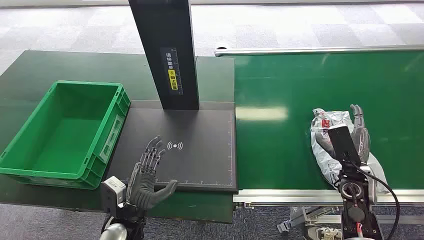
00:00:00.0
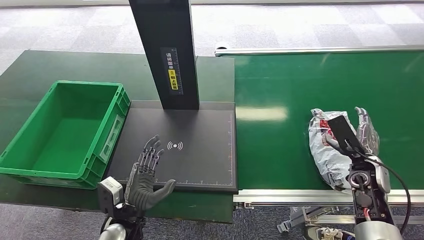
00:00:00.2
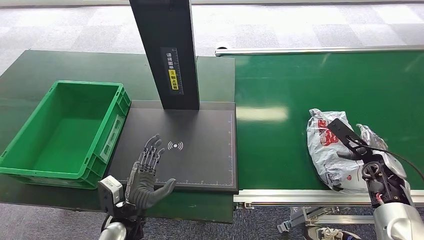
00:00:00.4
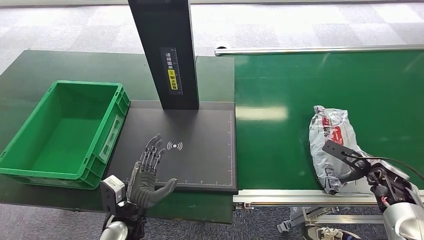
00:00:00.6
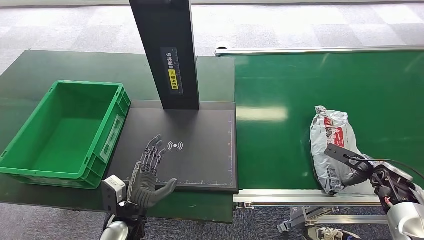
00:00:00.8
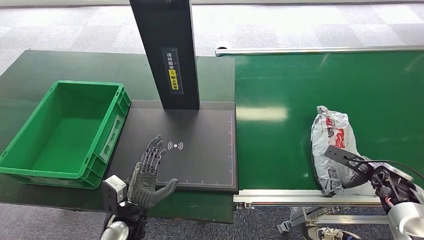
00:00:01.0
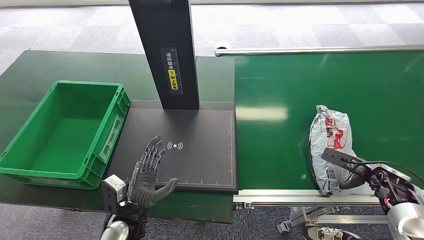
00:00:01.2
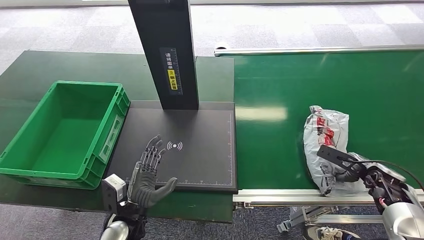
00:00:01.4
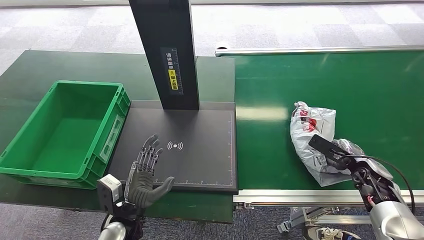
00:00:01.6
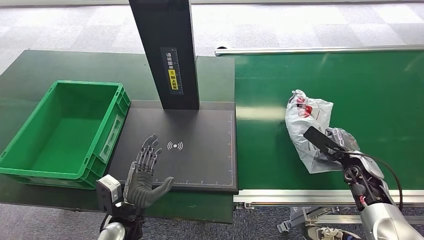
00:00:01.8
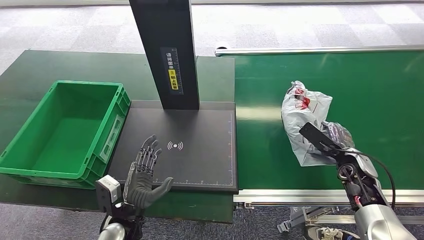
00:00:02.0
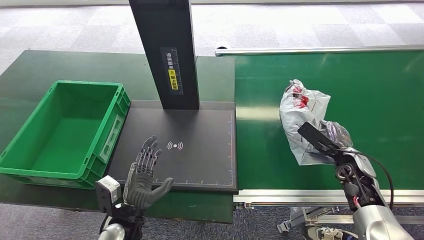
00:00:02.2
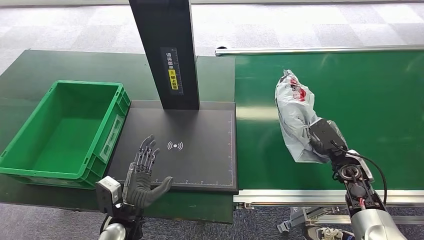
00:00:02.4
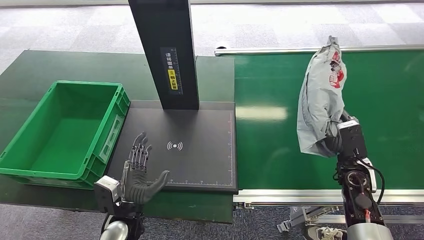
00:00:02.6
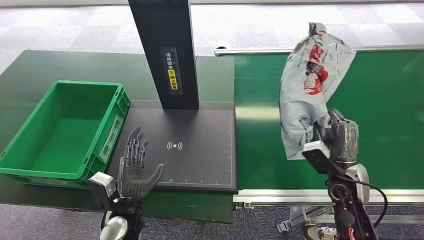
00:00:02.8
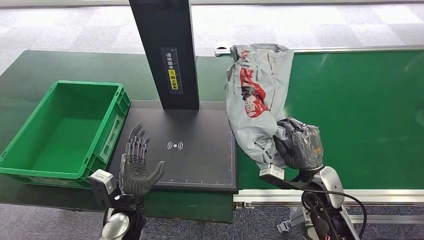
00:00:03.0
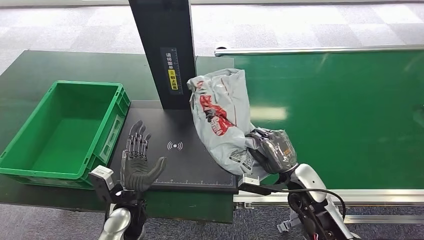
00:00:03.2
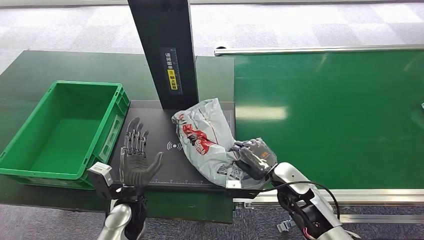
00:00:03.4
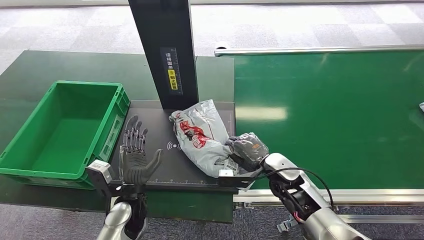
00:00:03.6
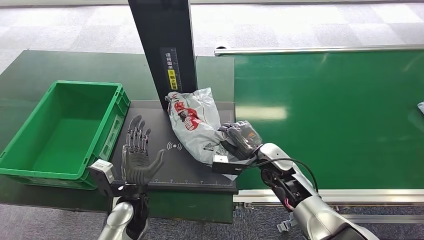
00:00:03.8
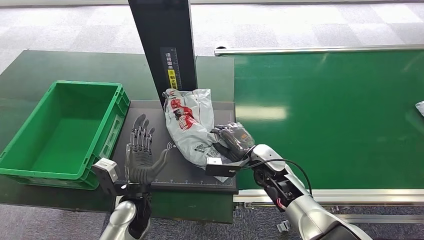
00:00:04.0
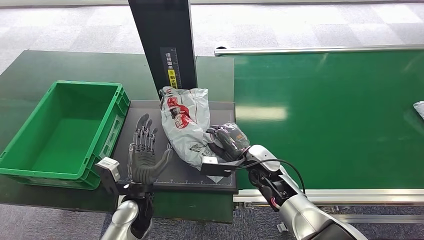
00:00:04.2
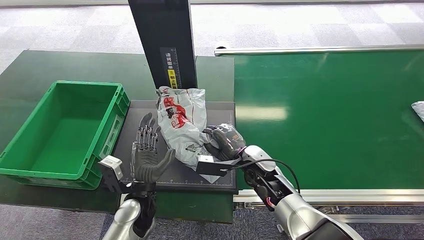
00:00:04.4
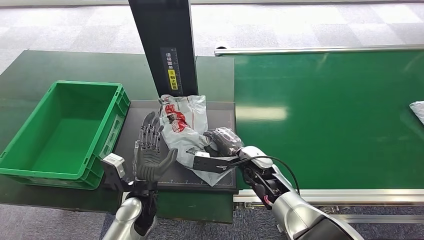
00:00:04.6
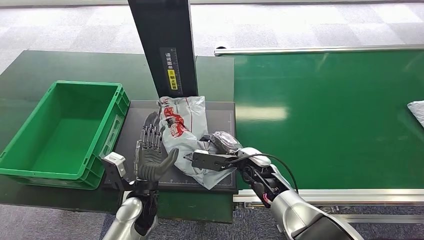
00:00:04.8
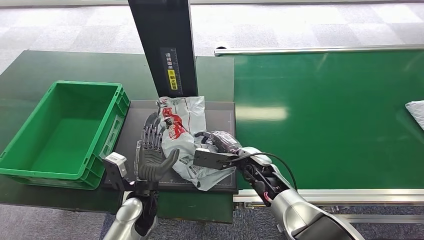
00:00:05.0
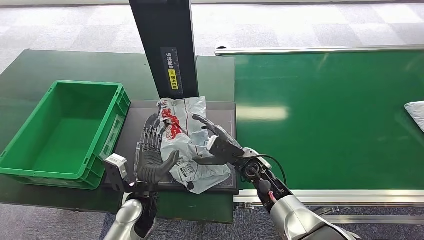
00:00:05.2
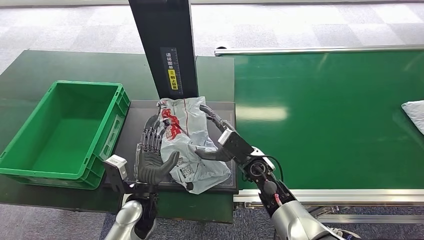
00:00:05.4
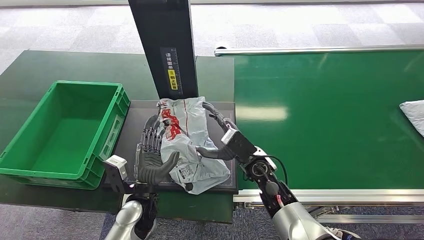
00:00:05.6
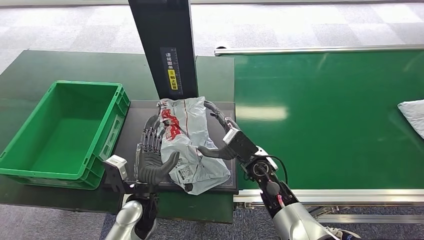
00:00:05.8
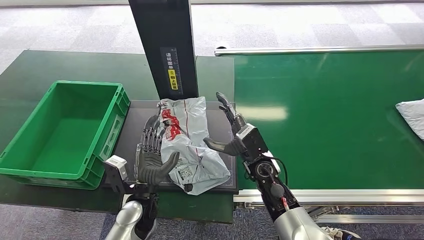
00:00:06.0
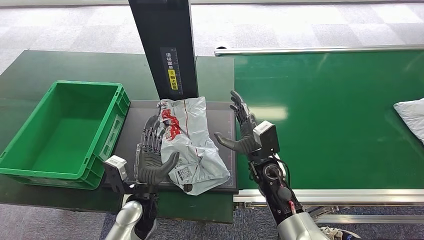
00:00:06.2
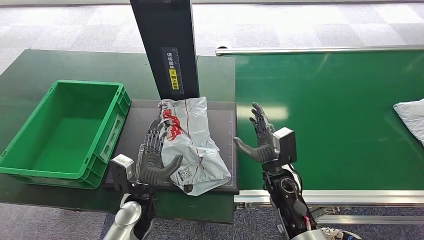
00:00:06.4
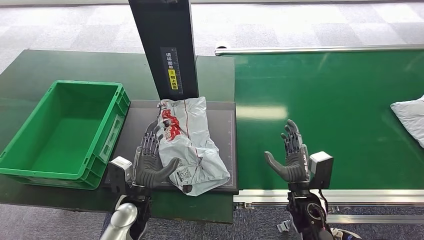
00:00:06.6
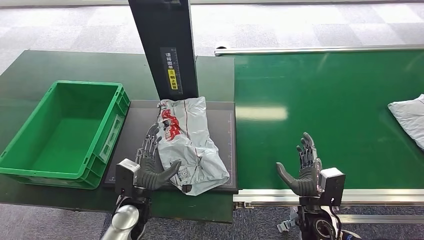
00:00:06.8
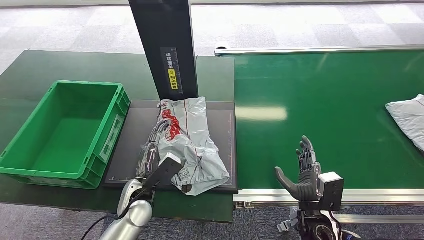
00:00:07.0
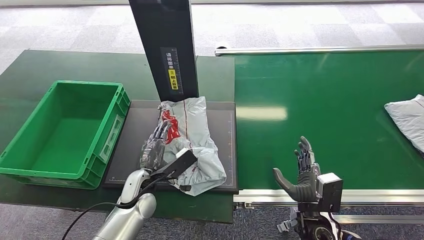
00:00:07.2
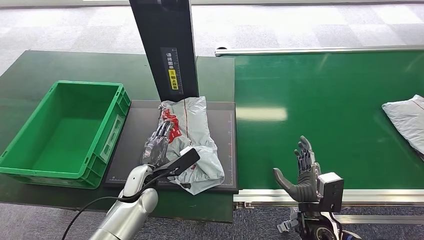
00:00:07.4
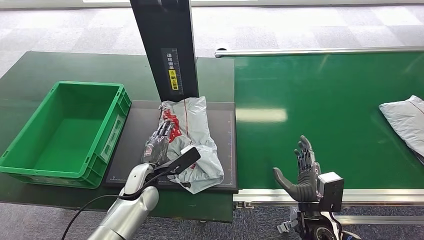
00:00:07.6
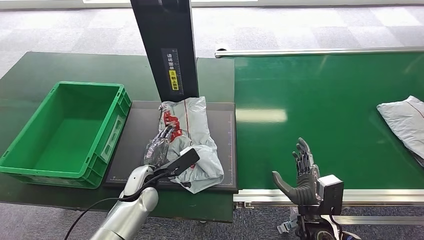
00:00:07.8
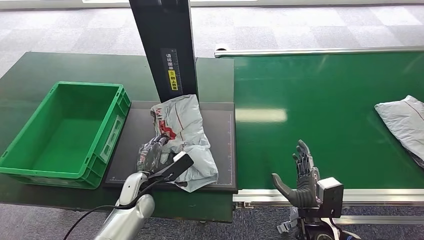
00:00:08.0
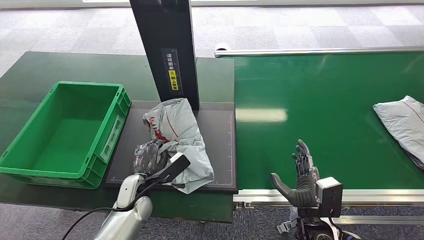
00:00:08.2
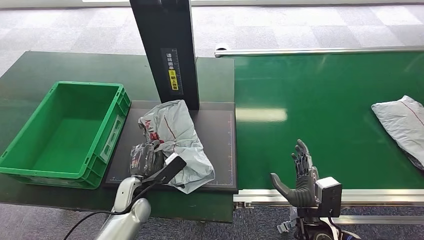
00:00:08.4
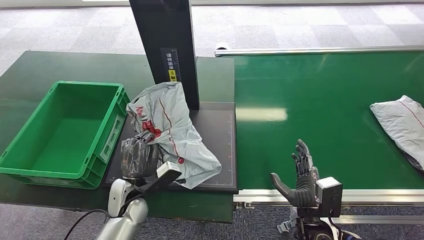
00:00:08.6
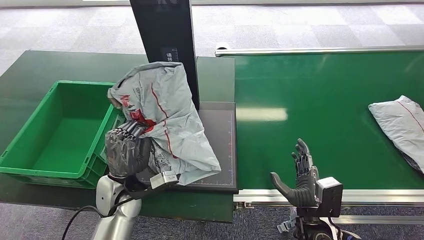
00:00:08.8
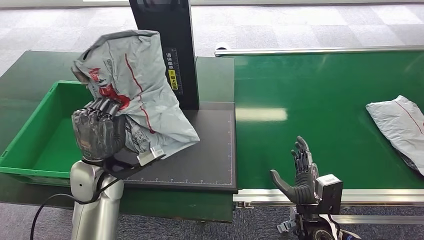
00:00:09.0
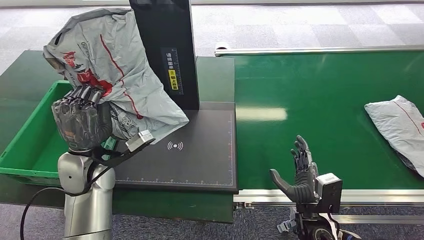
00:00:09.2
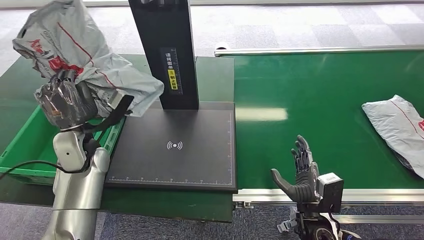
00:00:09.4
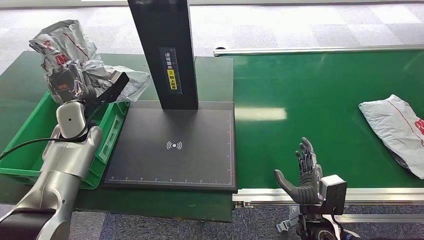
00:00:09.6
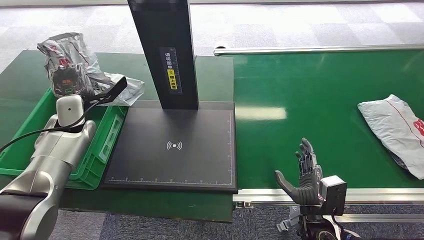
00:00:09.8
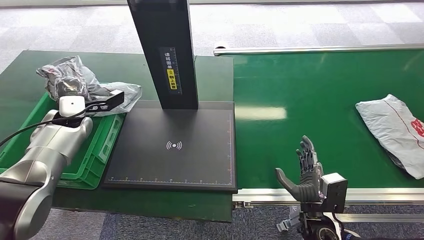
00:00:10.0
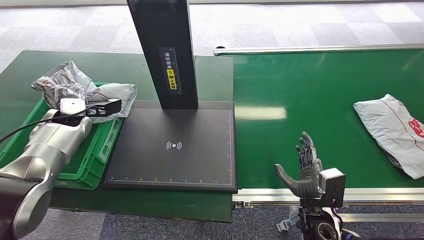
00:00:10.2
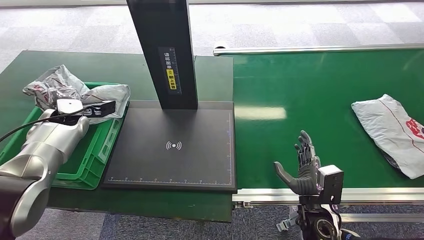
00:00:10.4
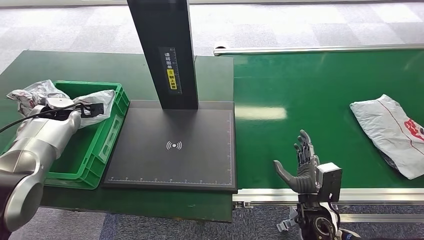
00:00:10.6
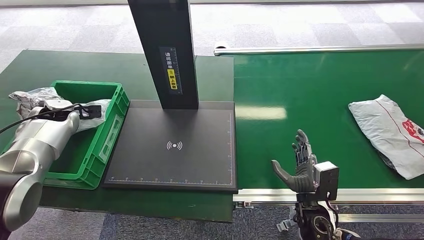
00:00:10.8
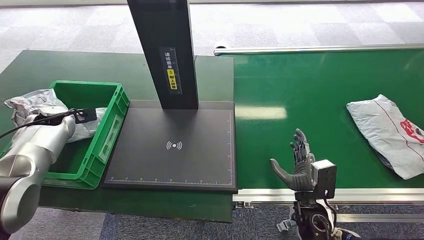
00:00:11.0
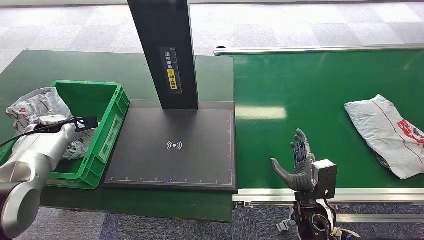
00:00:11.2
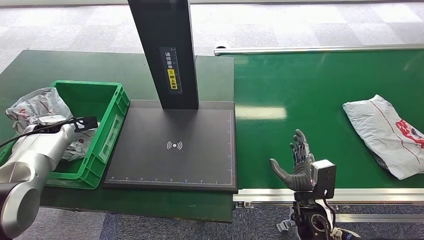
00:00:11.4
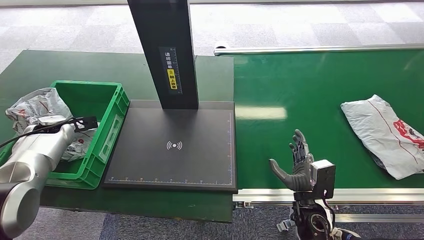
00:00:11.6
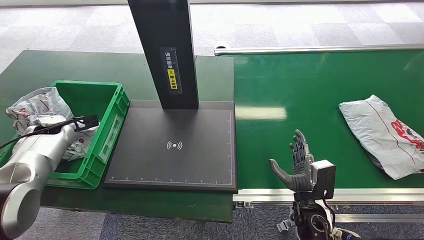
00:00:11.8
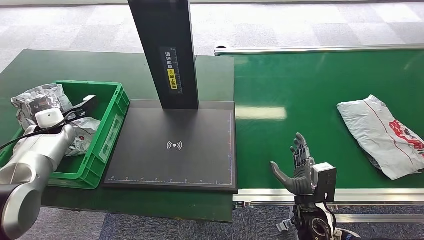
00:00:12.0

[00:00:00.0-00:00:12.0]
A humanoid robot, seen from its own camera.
Step, 00:00:00.0 to 00:00:02.4: Pick up the package from the conveyor belt.
Step, 00:00:02.6 to 00:00:05.2: Place the package onto the inbound machine.
Step, 00:00:05.4 to 00:00:08.8: Pick up the package from the inbound machine.
Step, 00:00:09.0 to 00:00:12.0: Place the package into the parcel locker.
00:00:01.6 to 00:00:03.0: The right hand goes some 20 cm to the left.
00:00:10.4 to 00:00:12.0: The left hand shifts by about 5 cm.
